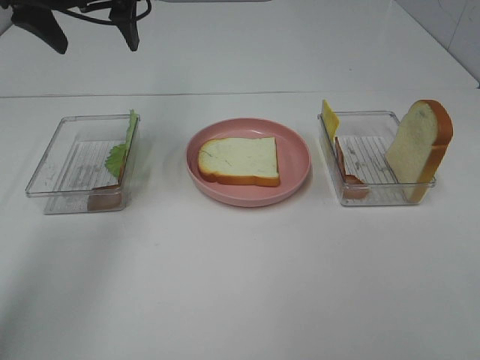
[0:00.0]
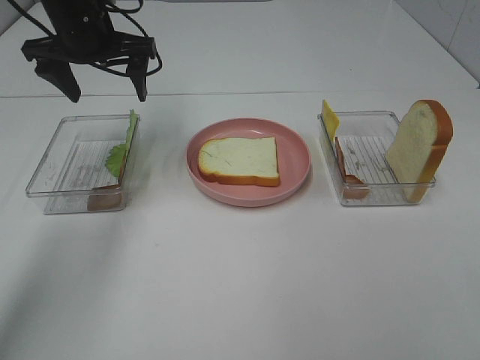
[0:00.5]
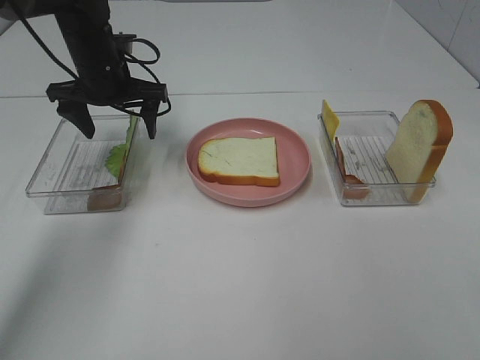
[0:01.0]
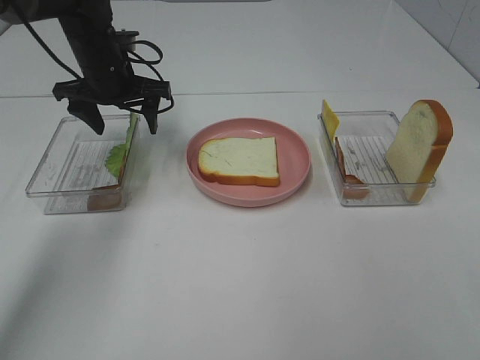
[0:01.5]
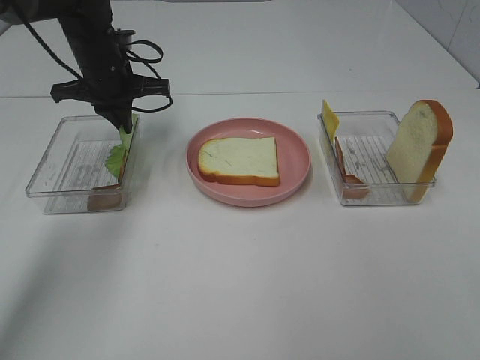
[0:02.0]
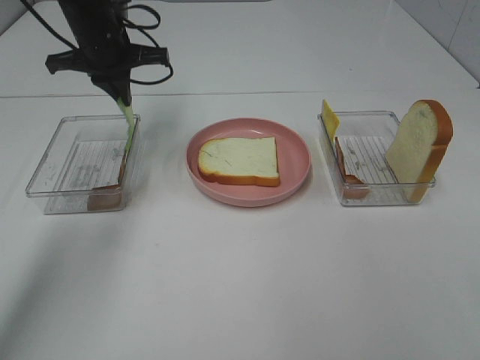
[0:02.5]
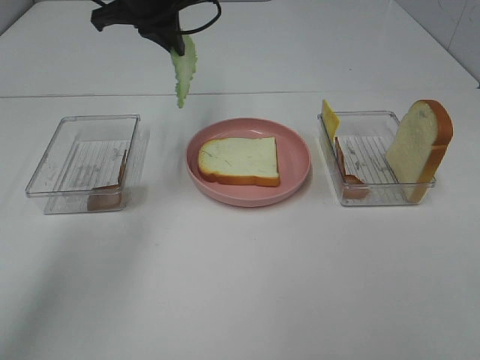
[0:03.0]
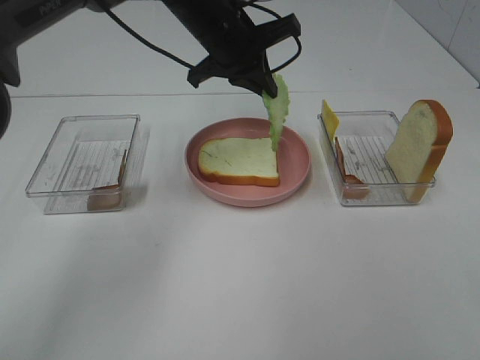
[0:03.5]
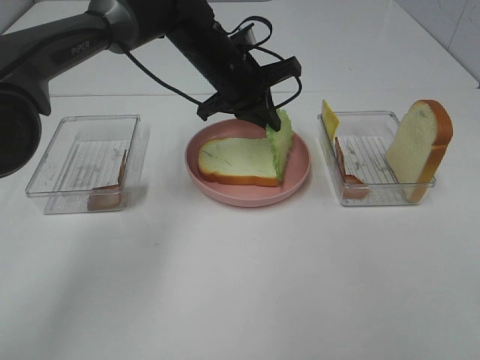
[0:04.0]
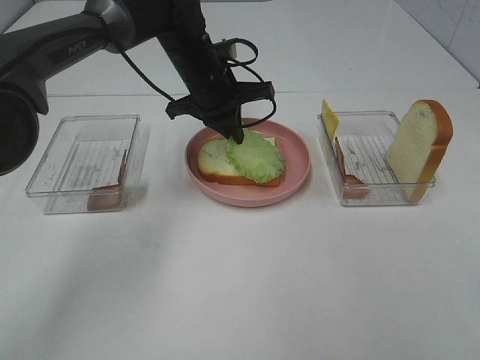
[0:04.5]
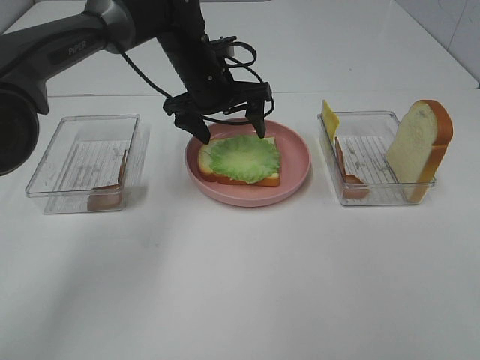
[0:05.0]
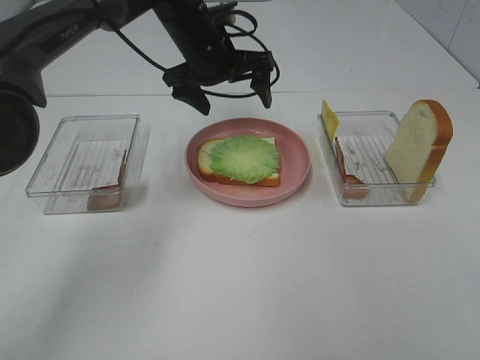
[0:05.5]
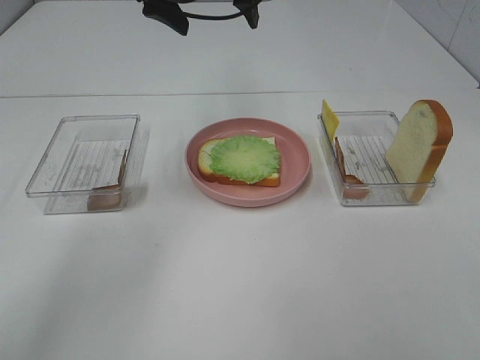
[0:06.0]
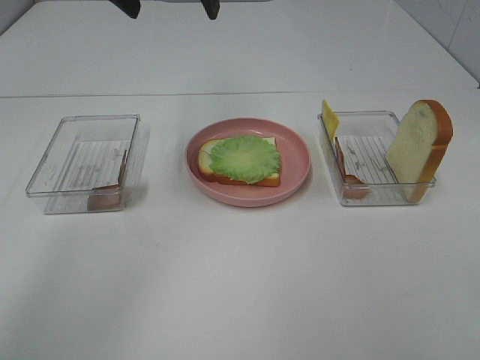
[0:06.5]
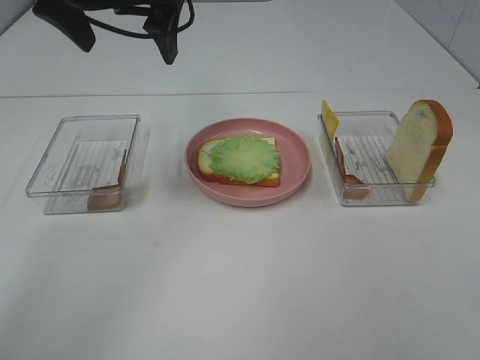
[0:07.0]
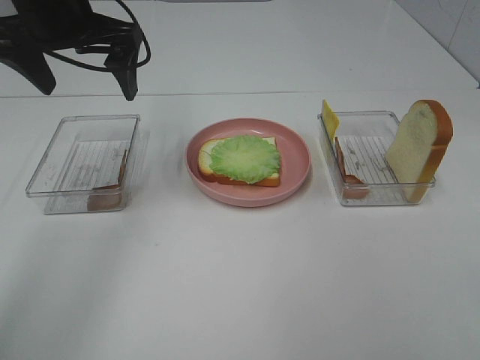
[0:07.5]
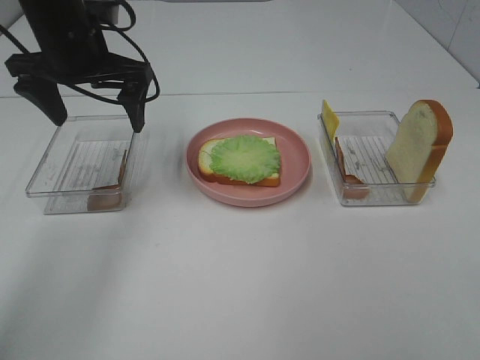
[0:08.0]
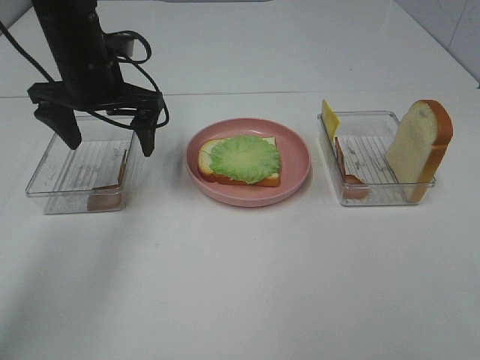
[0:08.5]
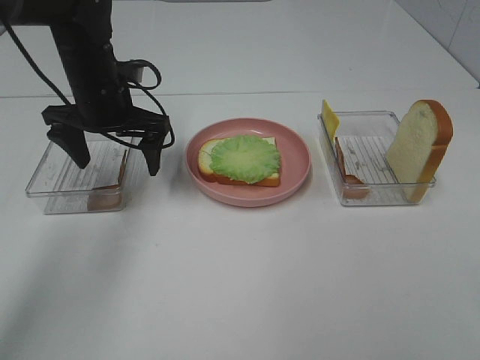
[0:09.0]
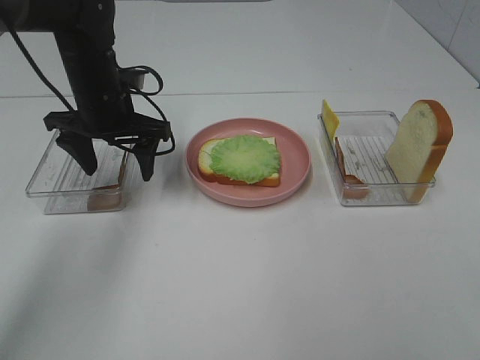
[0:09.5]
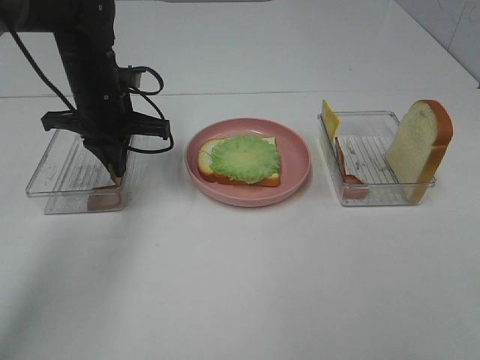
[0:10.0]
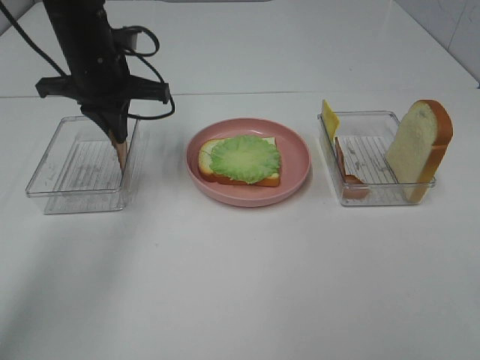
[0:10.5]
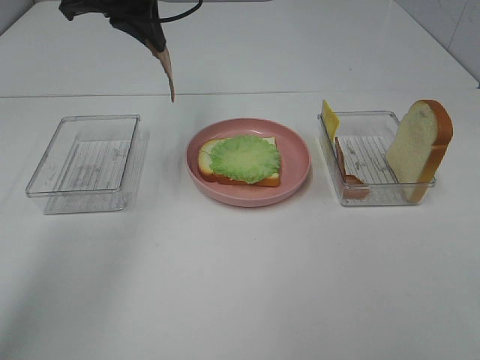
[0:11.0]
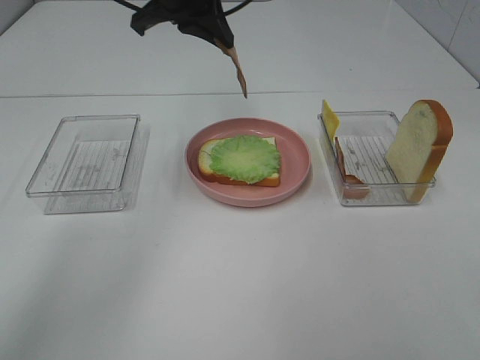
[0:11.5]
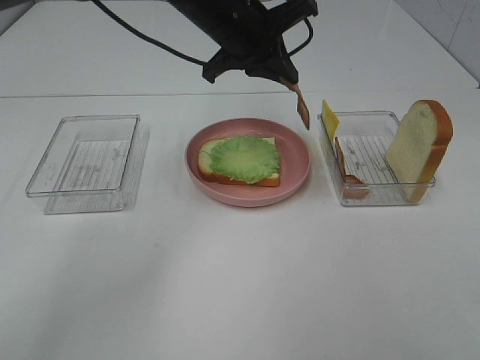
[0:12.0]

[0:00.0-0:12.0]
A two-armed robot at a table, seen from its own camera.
Task of the whole recording: Make sandwiches.
Step, 0:00.0 to 0:02.0: Left hand:grab the lettuce slice.
Step, 0:02.5 to 0:05.0: Left hand:place the lettuce slice on the bread slice.
Step, 0:05.5 to 0:10.5: Left hand:grab the bacon.
0:00.0 to 0:02.0: The left gripper heads downward, covering roughly 15 cm, and closes.
0:02.0 to 0:04.0: The left gripper is displaced to the right by some 15 cm.
0:04.0 to 0:06.0: The left gripper moves upward, some 15 cm, and opens up.
0:06.0 to 0:08.0: The left gripper is displaced to the left, downward and backward by roughly 15 cm.
0:08.0 to 0:10.0: The left gripper goes roughly 10 cm downward, and closes up.
0:10.0 to 0:12.0: The left gripper is displaced to the right and upward by some 15 cm.

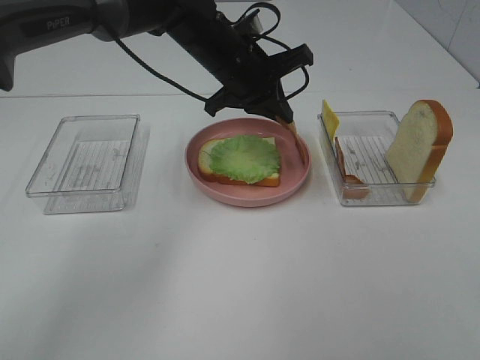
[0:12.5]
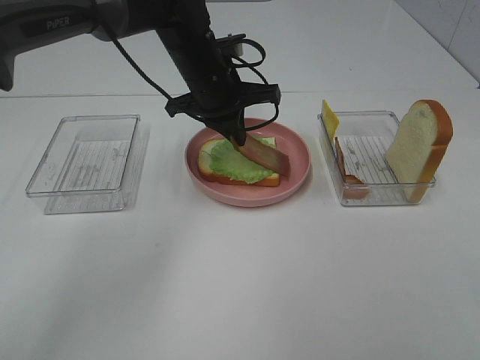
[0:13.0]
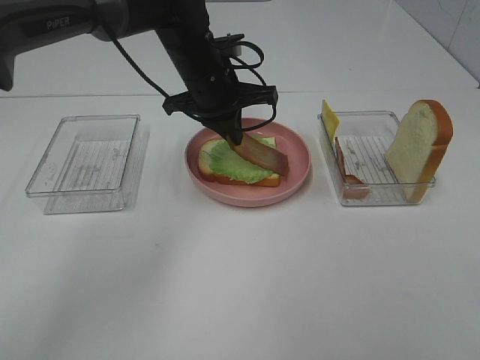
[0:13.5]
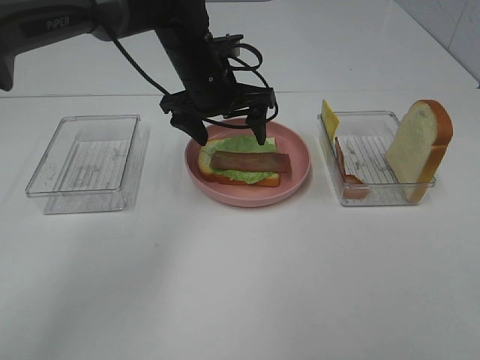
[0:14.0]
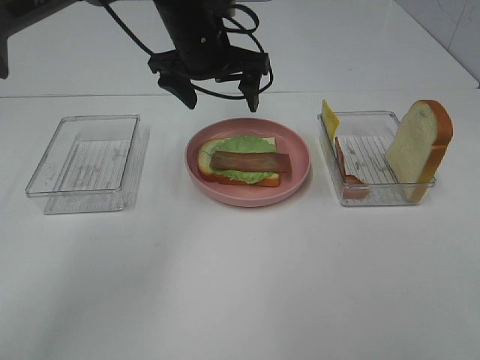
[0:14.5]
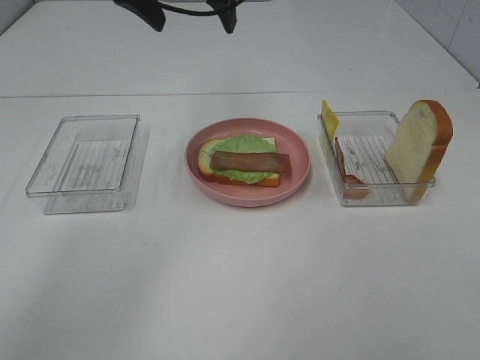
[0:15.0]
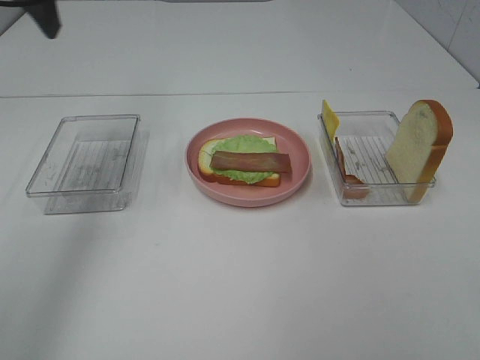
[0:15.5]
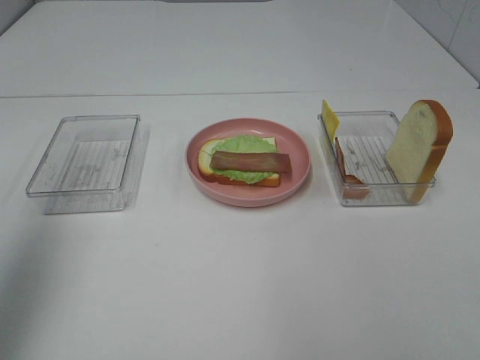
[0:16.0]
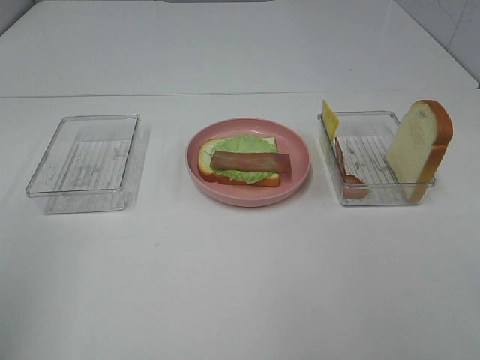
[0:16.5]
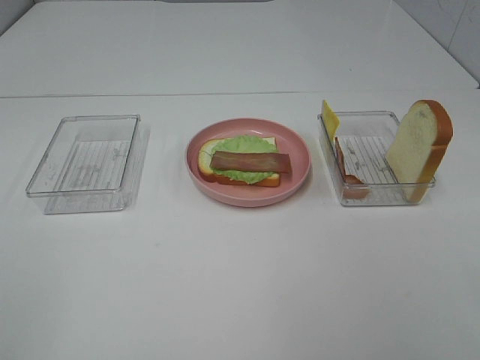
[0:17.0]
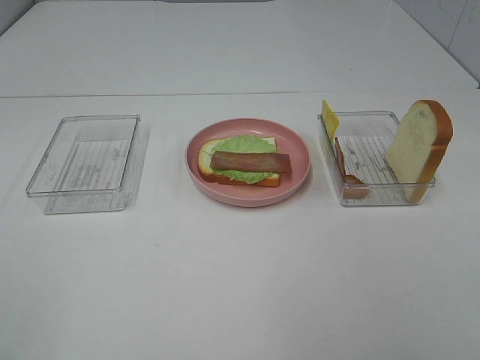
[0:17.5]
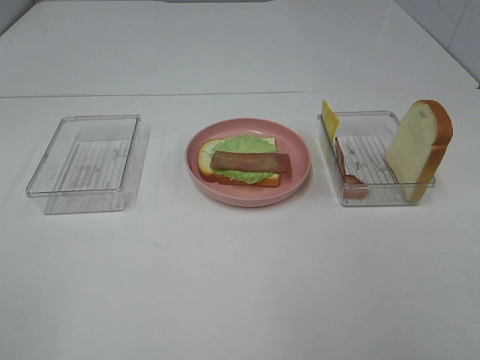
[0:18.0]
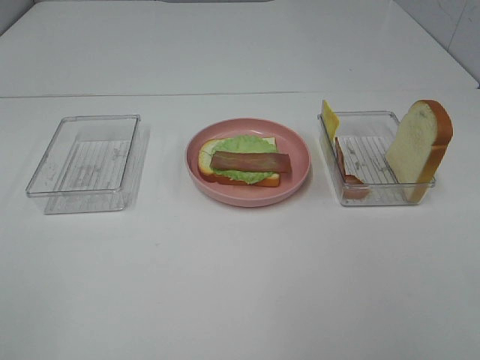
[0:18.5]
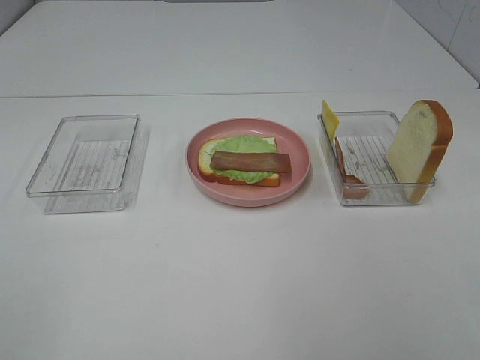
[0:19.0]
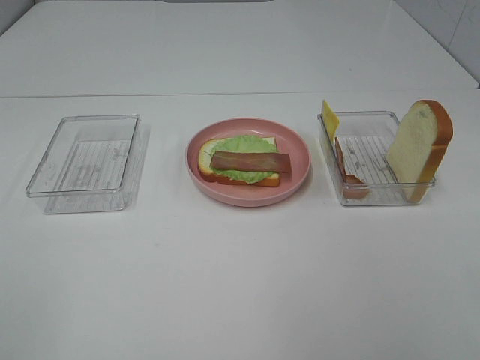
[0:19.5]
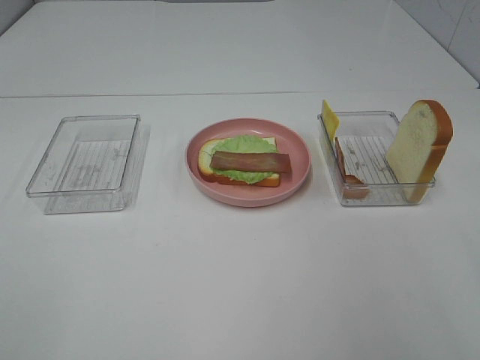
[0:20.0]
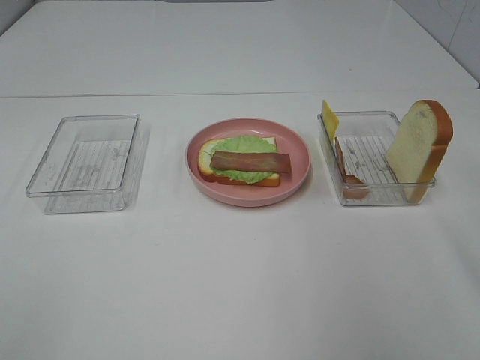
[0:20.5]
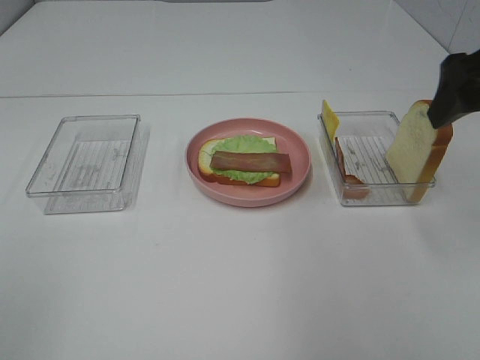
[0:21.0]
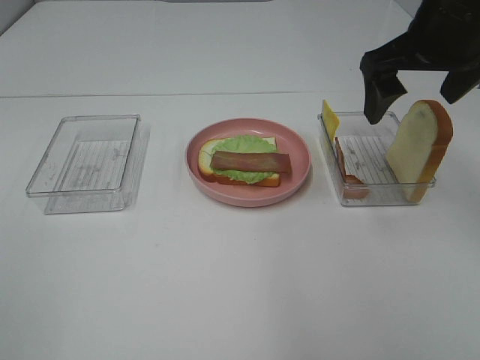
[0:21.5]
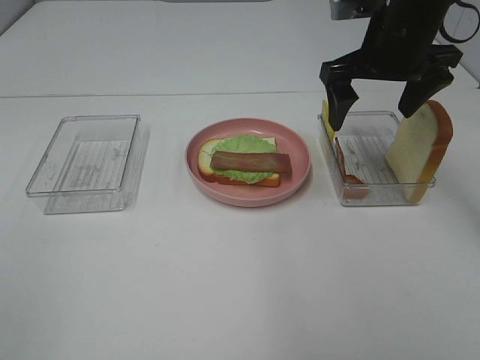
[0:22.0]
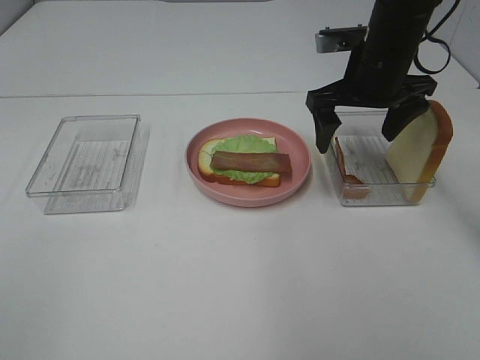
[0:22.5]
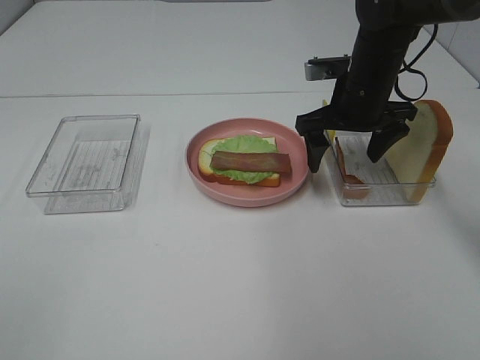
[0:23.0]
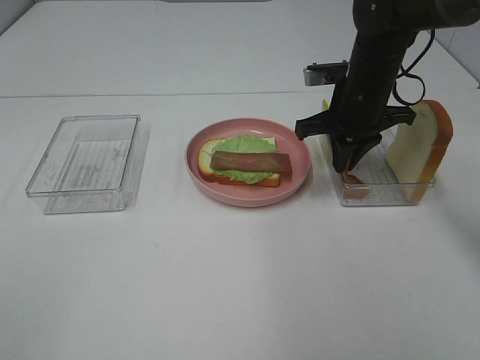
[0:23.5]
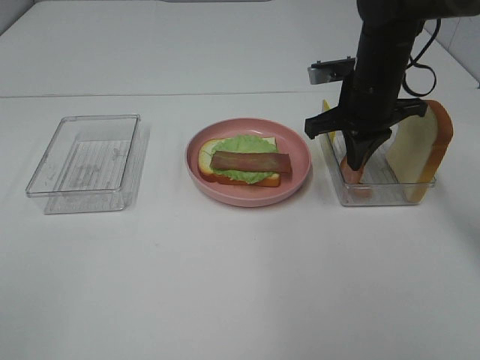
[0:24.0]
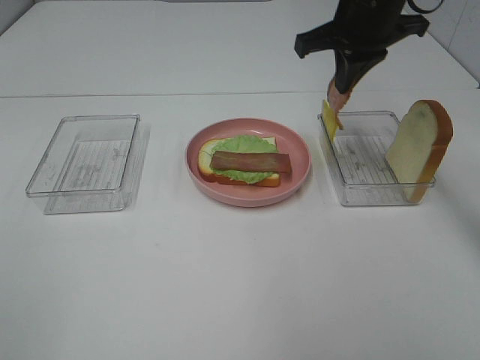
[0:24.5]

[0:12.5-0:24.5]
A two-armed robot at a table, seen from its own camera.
Task of the whole recording: Make sandwiches.
Step, 0:14.5 to 0:24.0: Right hand:grab the bacon.
0:12.5 to 0:14.5: The left gripper moves roughly 5 cm, and opens.
0:14.5 to 0:16.5: The left gripper is displaced backward and to the left by about 50 cm.
0:20.5 to 0:22.5: The right gripper travels forward, to the left and downward by approximately 25 cm.
0:22.5 to 0:24.5: The right gripper goes approximately 5 cm upward, and closes.

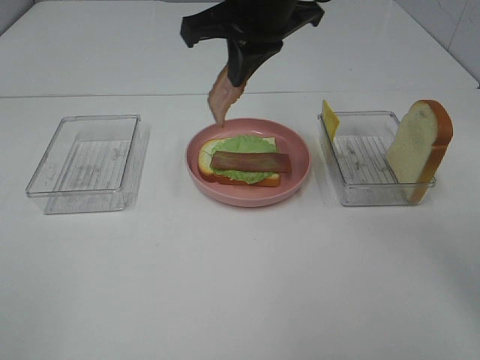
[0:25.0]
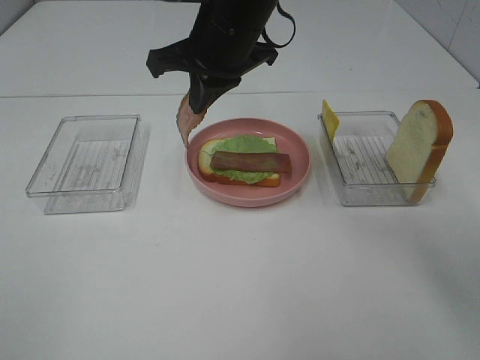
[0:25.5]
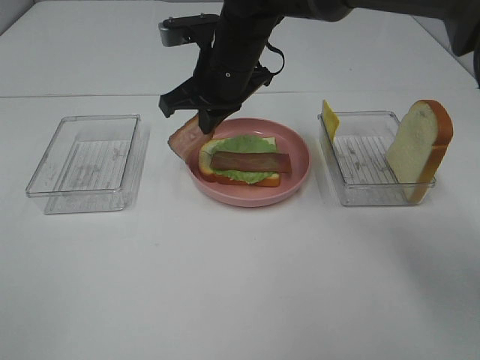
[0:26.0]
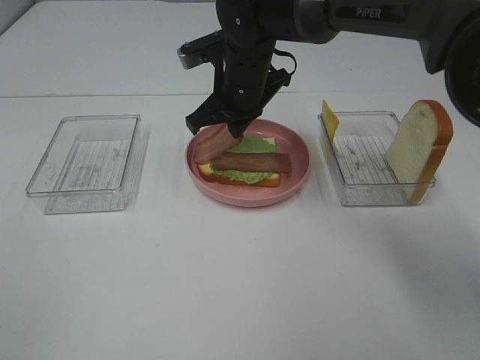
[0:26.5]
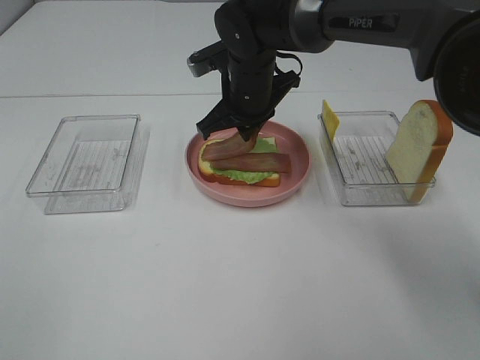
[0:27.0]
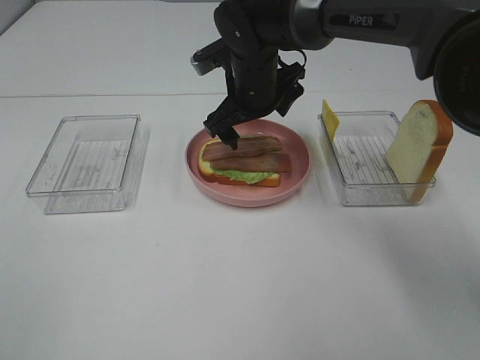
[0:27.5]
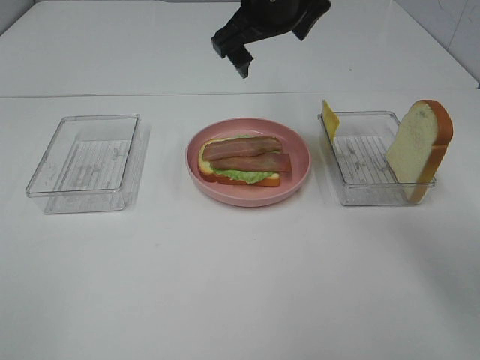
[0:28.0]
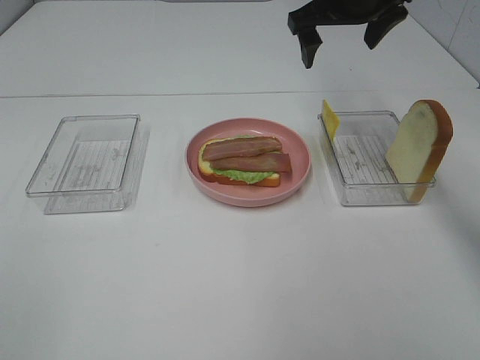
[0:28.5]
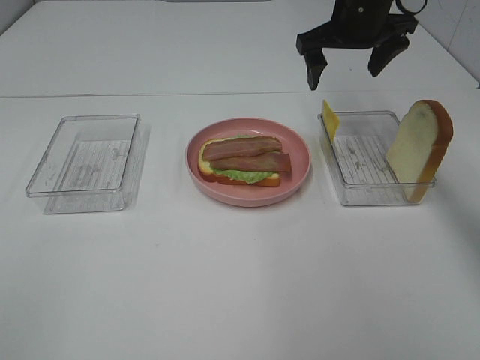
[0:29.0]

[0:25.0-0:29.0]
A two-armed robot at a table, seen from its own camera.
Task of the whole recording: Make sandwiches.
Step, 0:25.0 to 0:27.5: Right hand:place bacon on bacon.
0:25.0 to 0:27.0: The right gripper is displaced downward and forward by some 15 cm.
0:27.0 to 0:29.0: The right gripper moves to the right and upward, some 15 cm, and opens its fingers.
